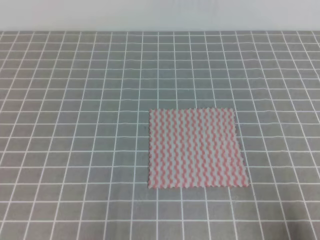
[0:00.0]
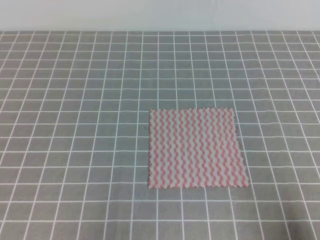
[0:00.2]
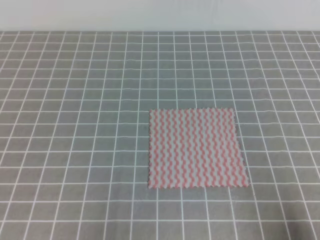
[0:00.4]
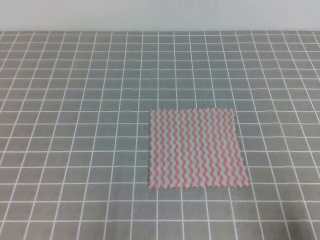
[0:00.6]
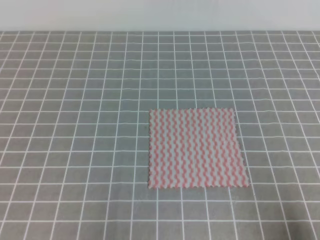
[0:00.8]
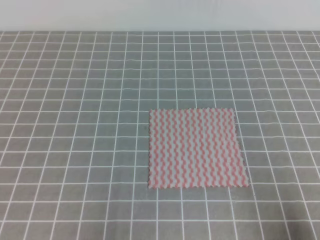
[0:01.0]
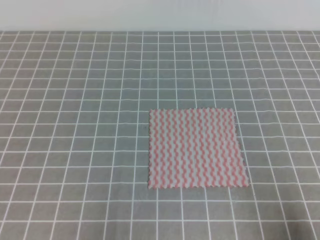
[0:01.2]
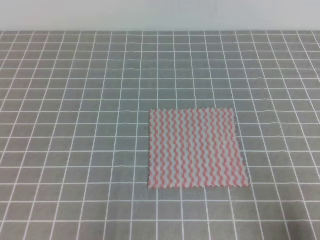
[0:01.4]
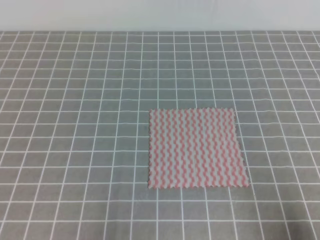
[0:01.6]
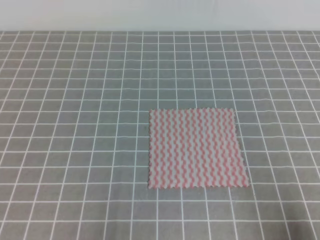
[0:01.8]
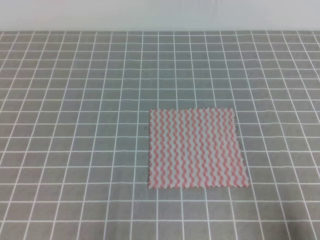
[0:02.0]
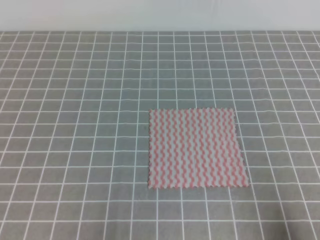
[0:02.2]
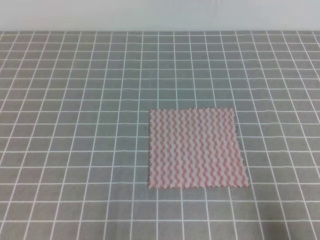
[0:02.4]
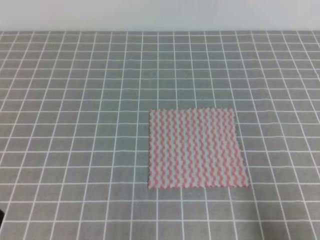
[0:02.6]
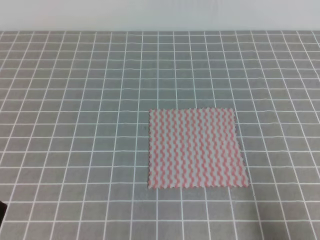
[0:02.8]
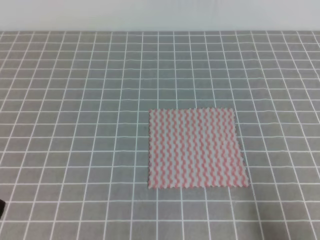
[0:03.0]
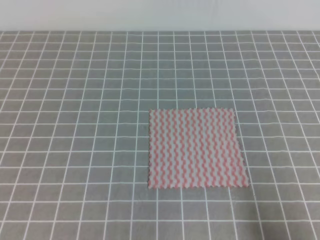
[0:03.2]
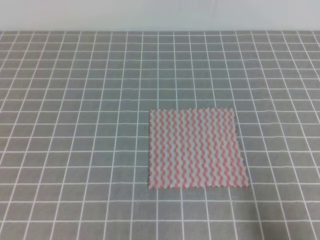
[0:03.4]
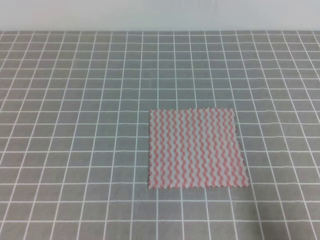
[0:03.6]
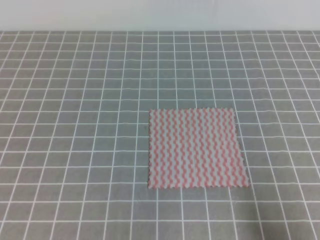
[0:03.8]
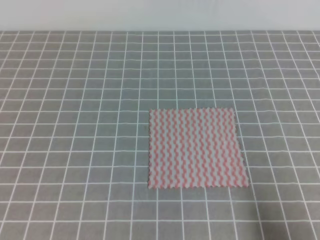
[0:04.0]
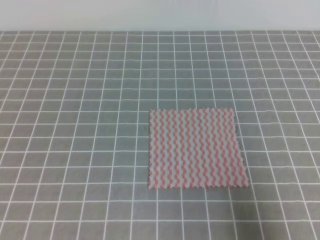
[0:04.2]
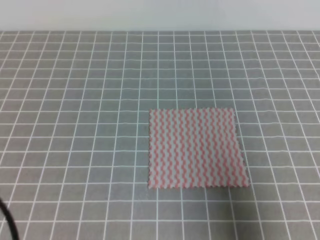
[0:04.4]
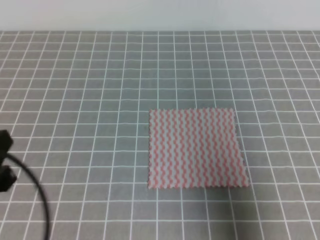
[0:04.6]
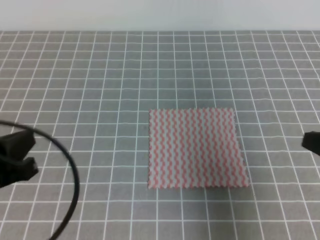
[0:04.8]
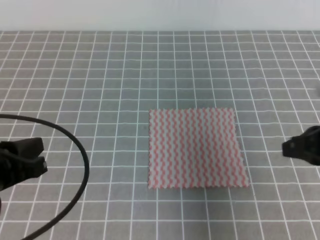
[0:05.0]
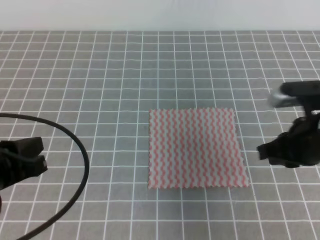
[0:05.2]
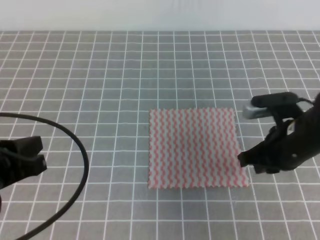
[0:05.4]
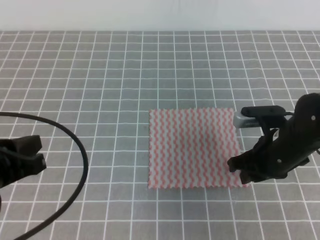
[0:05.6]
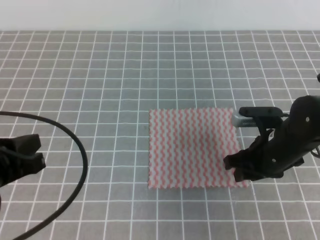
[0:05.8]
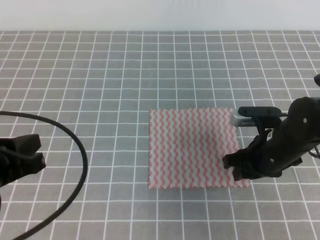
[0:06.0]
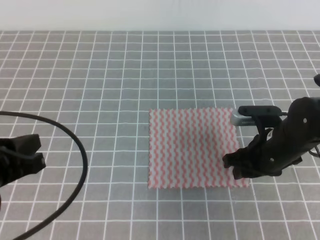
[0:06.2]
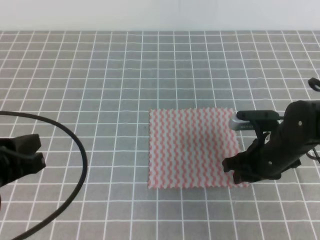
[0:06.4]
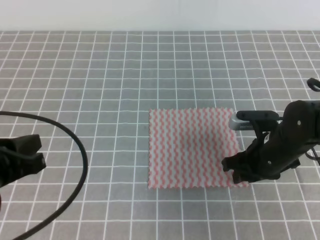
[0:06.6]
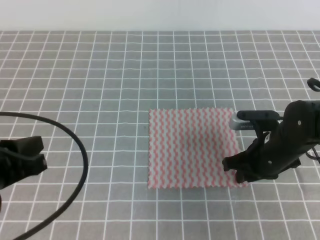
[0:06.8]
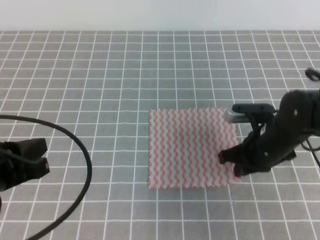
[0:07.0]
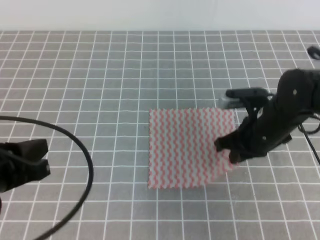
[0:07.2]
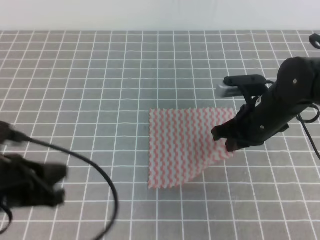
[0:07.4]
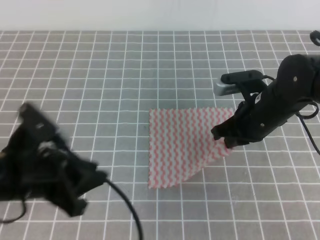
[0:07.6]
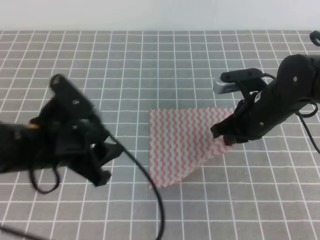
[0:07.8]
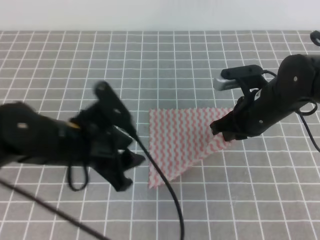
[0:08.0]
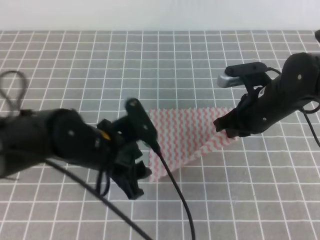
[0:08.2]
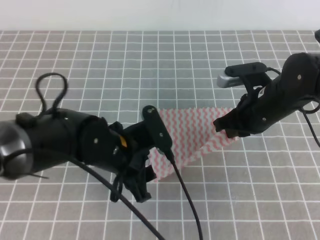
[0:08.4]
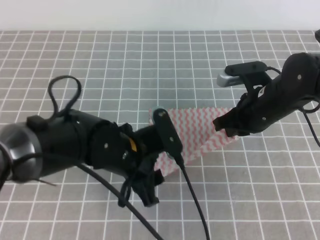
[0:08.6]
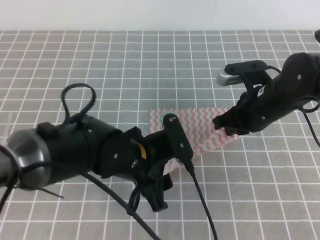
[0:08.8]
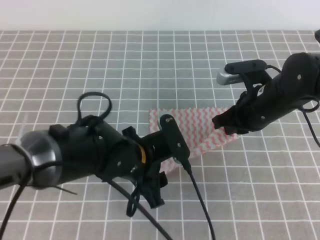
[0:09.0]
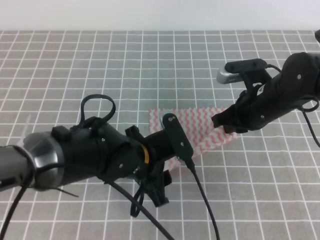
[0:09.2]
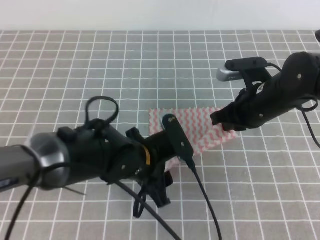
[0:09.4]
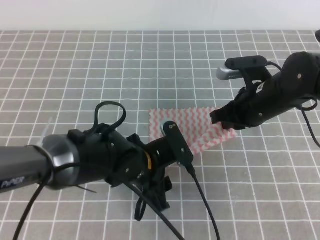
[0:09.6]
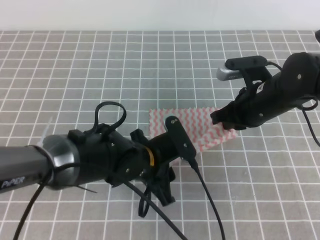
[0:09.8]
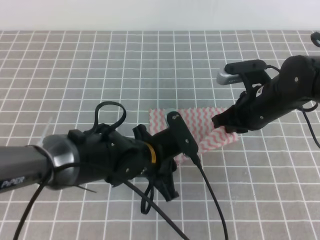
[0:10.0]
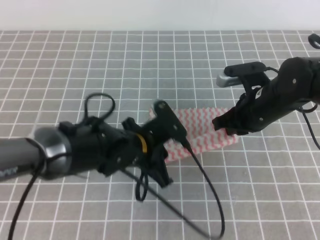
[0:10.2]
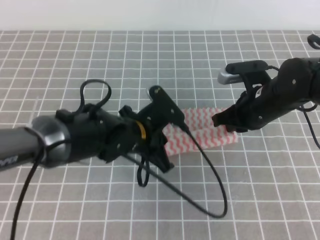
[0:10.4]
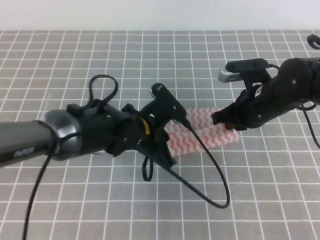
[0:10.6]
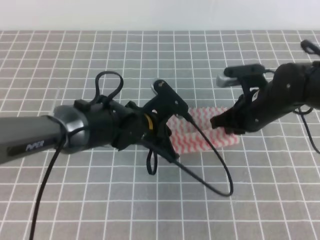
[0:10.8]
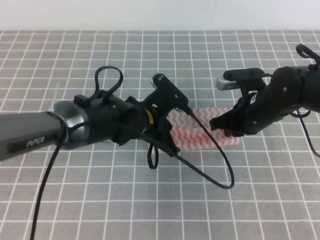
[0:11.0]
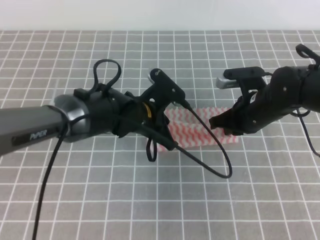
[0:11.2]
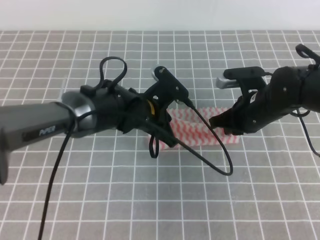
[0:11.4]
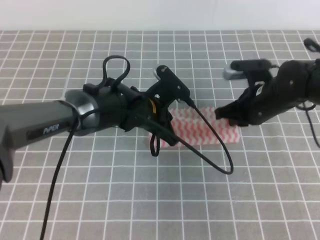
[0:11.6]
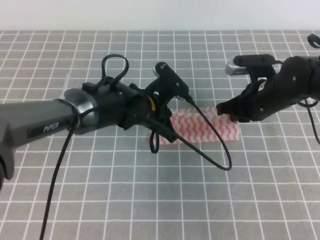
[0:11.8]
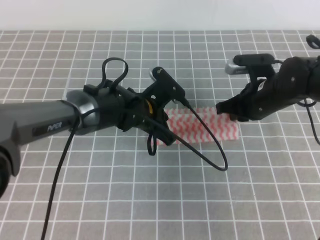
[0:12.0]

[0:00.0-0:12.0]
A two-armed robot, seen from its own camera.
0:00.0 to 0:01.6: Both grippers stay put.
0:03.0 to 0:04.4: The two grippers go some 5 cm upward.
0:04.4 to 0:06.0: The right gripper is displaced forward, to the left and downward by some 25 cm, and opens, while the left gripper travels forward by approximately 5 cm.
0:06.0 to 0:07.6: The right gripper shifts by some 5 cm, and closes; the left gripper opens.
0:07.6 to 0:09.0: The left gripper moves to the right, some 15 cm, and opens up.
0:09.0 to 0:10.4: The left gripper closes its fingers.
0:10.4 to 0:12.0: The left gripper is displaced forward by roughly 5 cm.

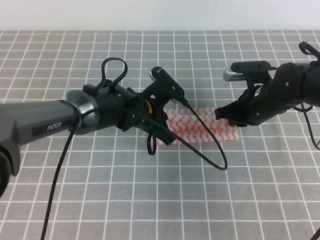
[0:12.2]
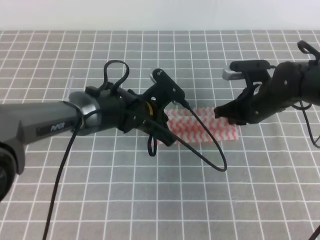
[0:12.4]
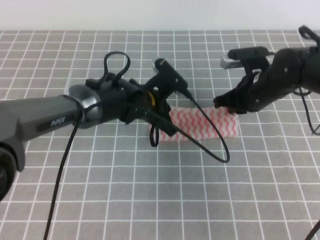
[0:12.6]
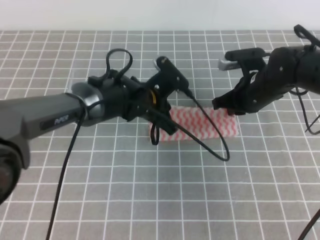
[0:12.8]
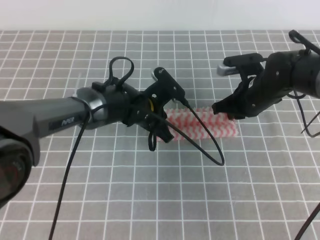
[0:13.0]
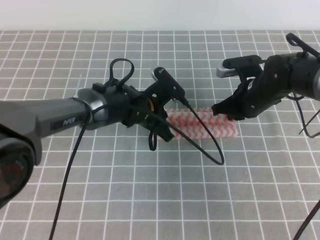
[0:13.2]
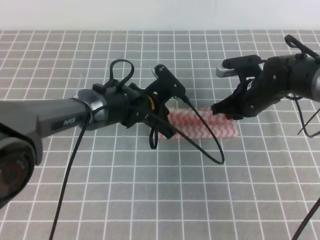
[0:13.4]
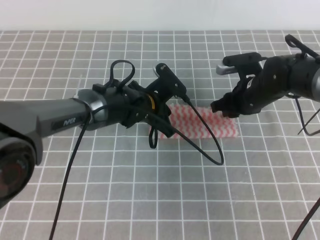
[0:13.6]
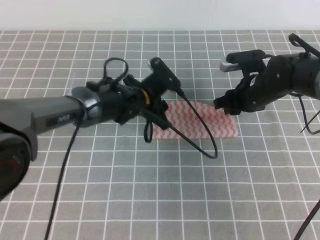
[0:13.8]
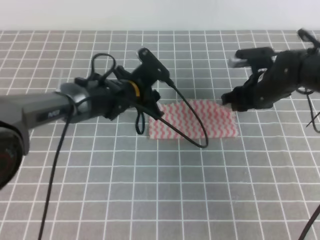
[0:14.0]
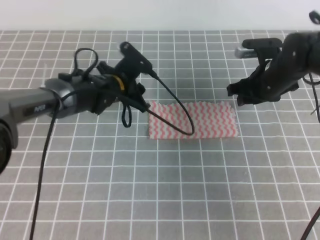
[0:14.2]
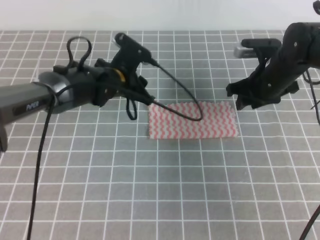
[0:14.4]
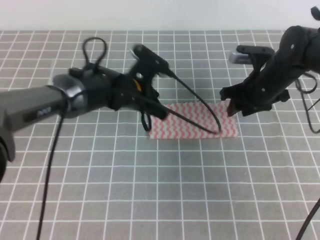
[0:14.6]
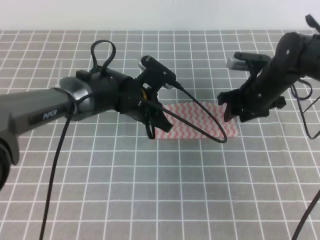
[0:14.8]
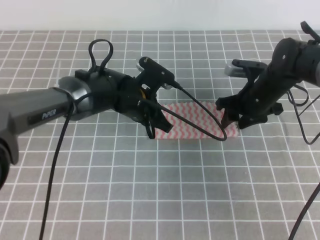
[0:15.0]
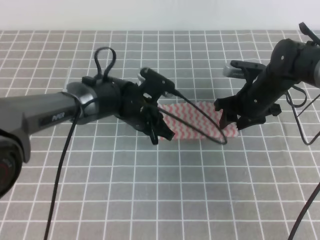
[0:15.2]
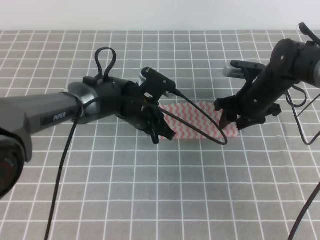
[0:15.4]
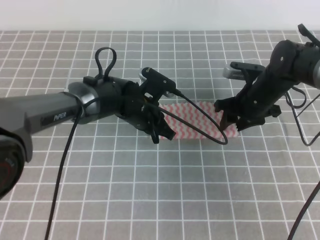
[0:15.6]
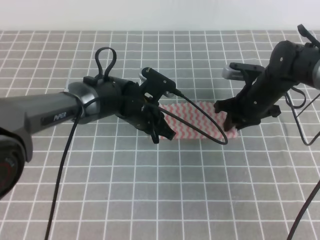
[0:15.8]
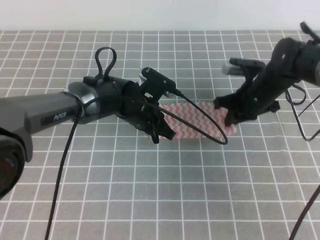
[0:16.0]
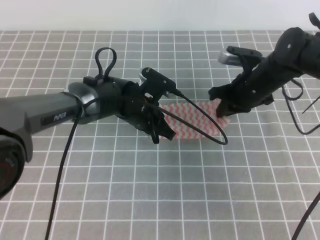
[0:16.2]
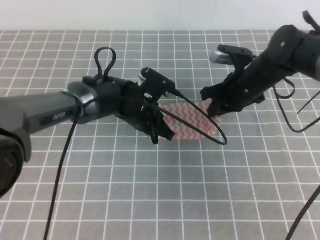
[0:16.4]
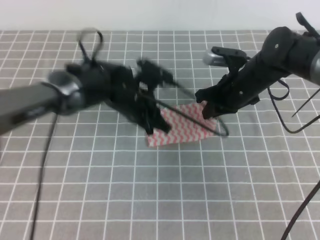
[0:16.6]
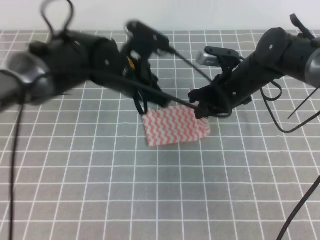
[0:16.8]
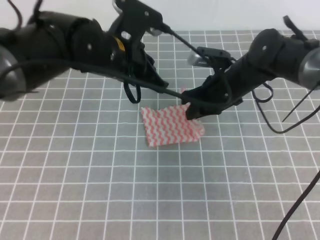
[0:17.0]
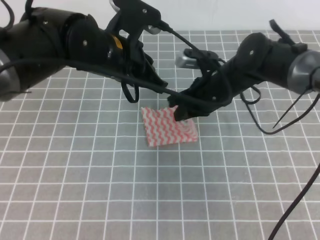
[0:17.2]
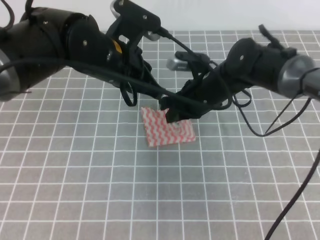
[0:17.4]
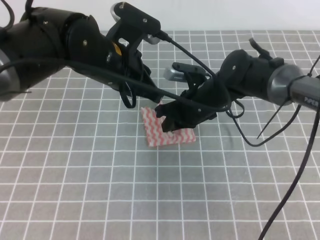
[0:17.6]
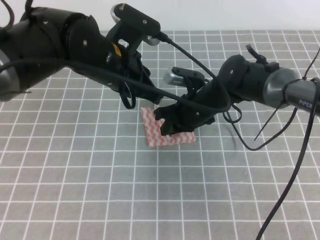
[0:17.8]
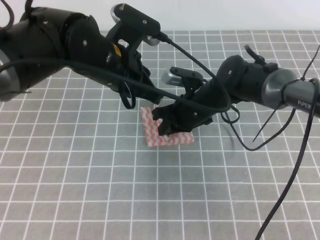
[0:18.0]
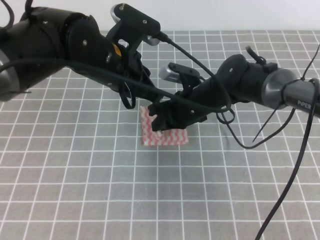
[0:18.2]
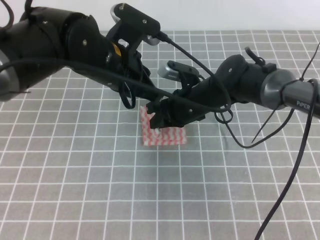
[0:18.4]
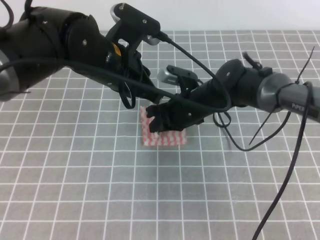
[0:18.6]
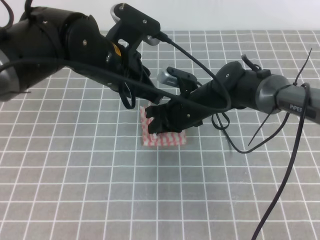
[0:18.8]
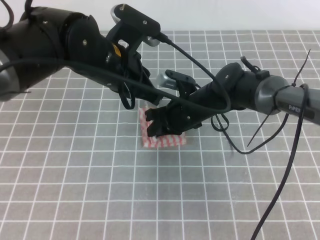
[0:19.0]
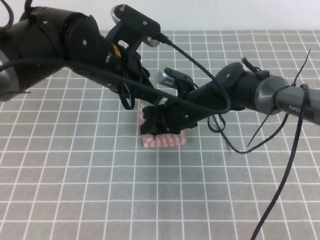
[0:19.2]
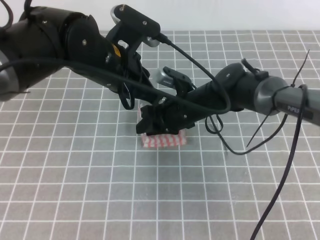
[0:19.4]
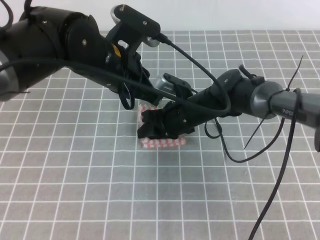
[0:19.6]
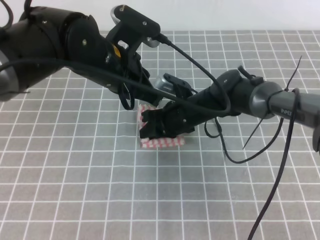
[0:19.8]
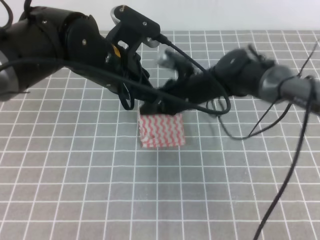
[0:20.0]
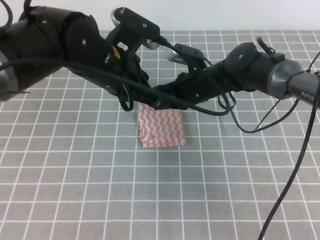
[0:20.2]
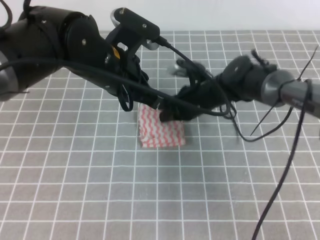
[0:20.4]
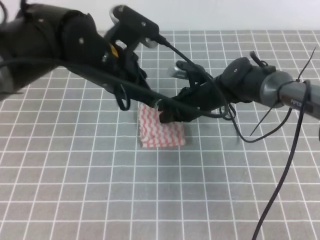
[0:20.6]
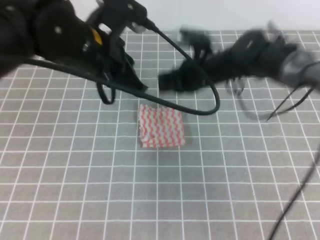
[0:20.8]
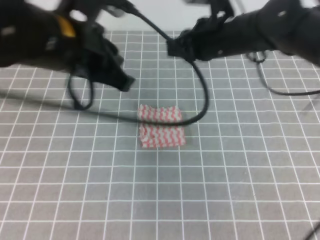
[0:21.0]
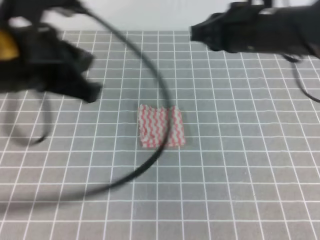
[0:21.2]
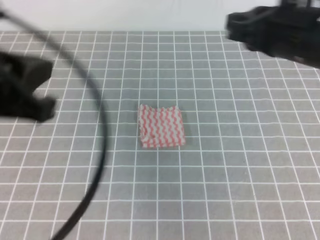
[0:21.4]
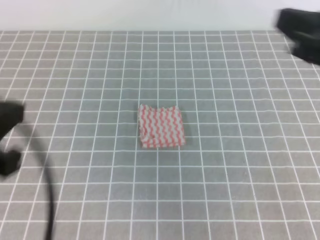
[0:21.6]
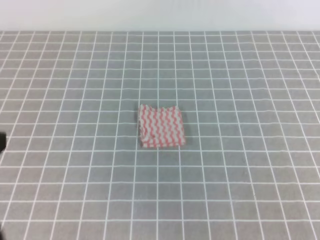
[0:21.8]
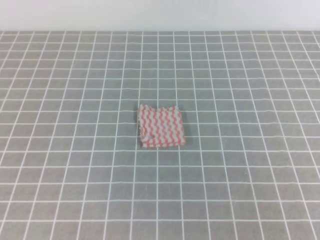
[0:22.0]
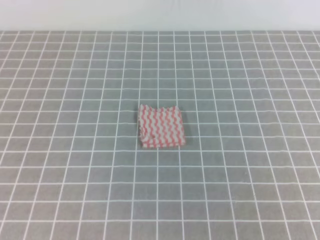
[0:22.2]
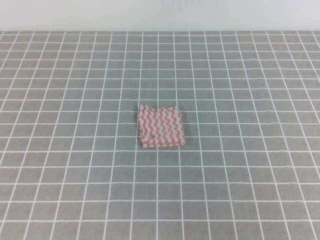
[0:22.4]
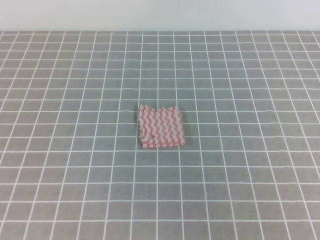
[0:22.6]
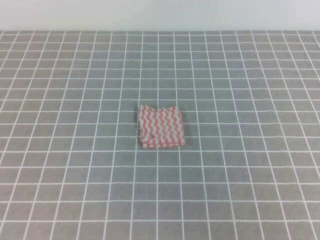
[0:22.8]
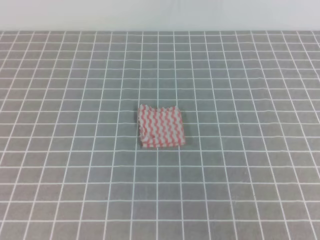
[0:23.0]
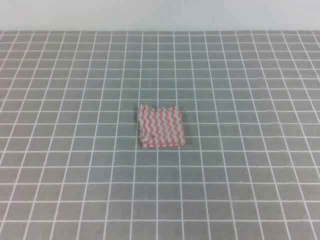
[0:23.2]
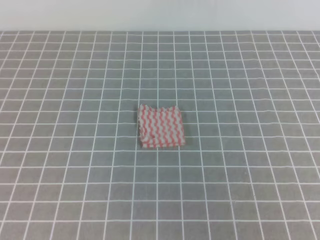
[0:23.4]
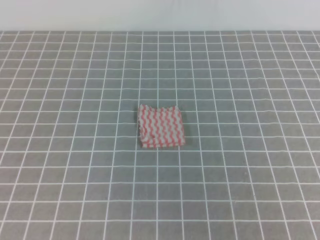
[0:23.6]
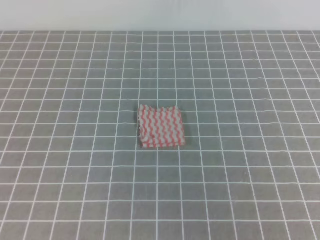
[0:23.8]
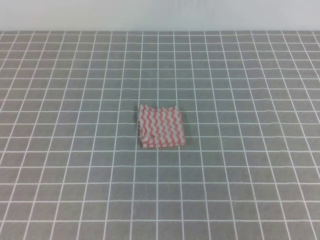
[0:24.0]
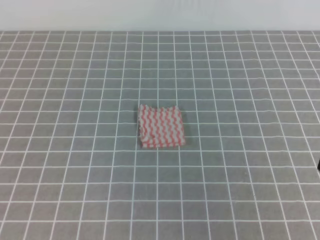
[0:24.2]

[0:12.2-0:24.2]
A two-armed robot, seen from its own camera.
0:12.2 to 0:13.8: The left gripper opens. Meanwhile the right gripper opens.
0:13.8 to 0:15.2: The left gripper closes its fingers.
0:15.2 to 0:16.6: The right gripper ends up some 5 cm from where it was, and closes its fingers.
0:16.6 to 0:18.2: The left gripper moves upward, approximately 10 cm. The right gripper shifts roughly 10 cm to the left.
0:18.2 to 0:19.8: The right gripper opens, then closes again.
0:19.8 to 0:21.2: The left gripper heads backward, upward and to the left, covering some 15 cm. Meanwhile the right gripper is displaced upward and to the right by approximately 20 cm.
0:21.2 to 0:22.6: The left gripper goes approximately 20 cm backward, to the left and downward. Meanwhile the right gripper shifts about 30 cm backward and to the right.
